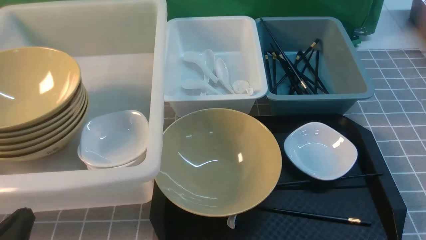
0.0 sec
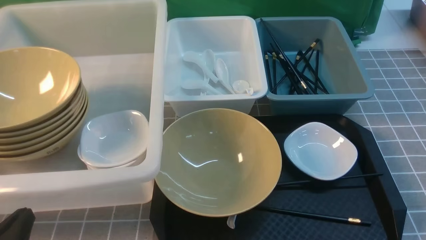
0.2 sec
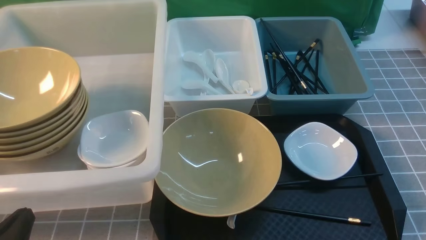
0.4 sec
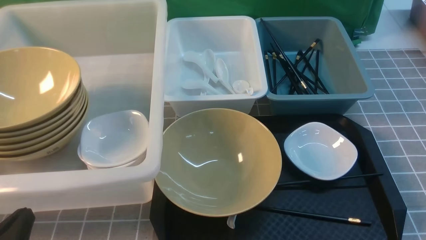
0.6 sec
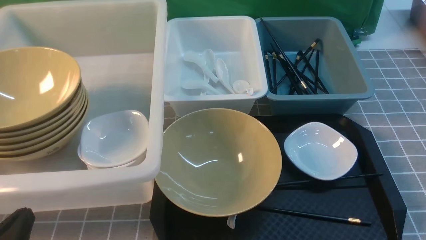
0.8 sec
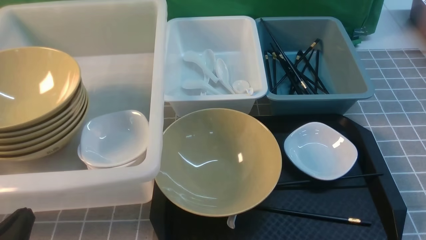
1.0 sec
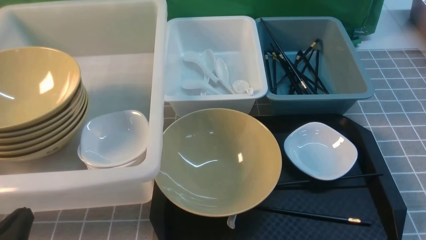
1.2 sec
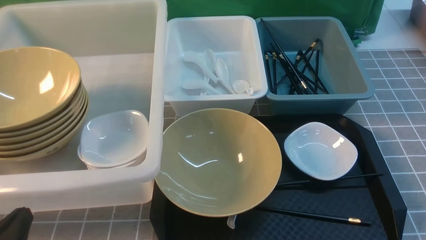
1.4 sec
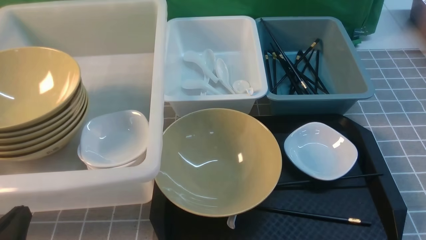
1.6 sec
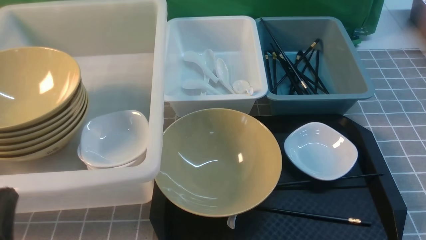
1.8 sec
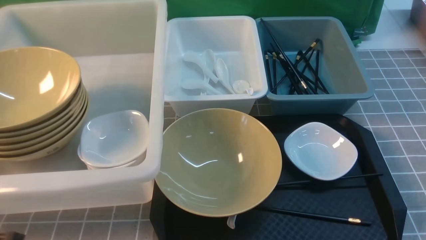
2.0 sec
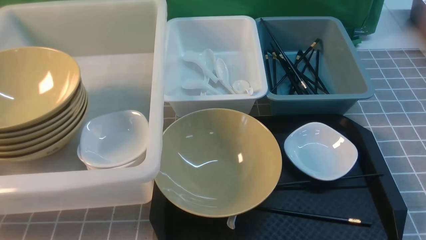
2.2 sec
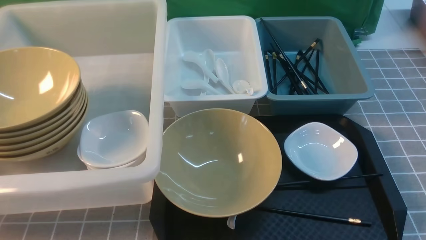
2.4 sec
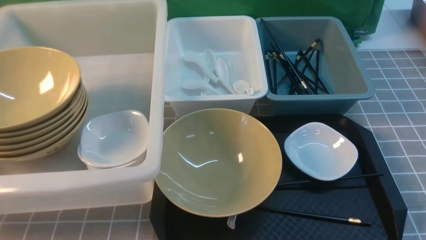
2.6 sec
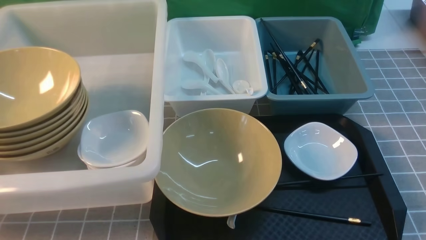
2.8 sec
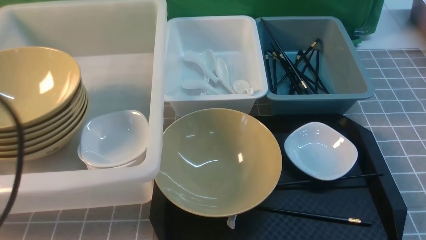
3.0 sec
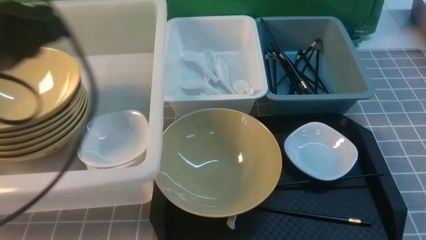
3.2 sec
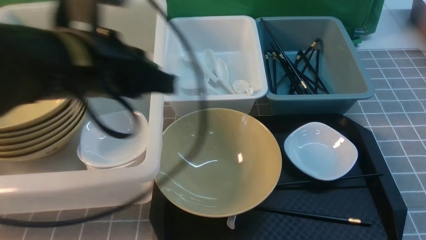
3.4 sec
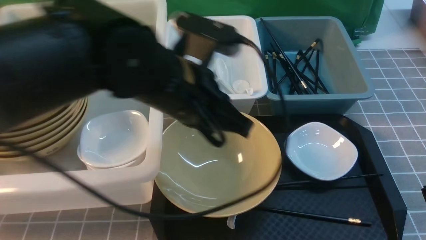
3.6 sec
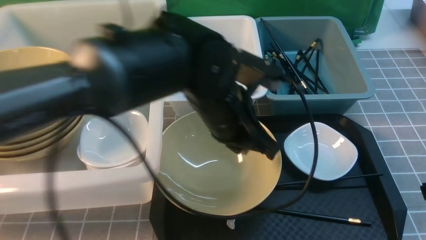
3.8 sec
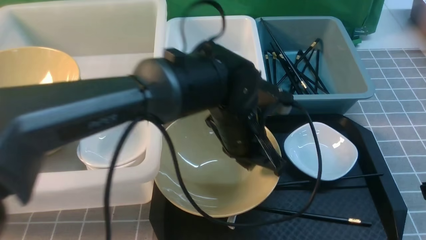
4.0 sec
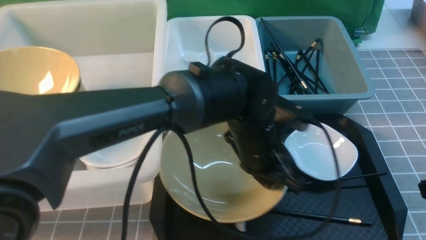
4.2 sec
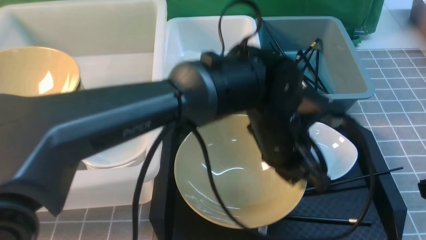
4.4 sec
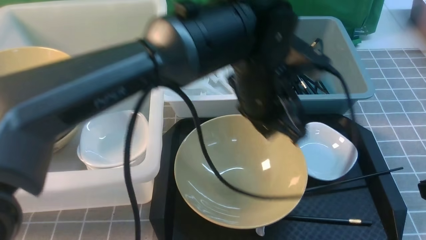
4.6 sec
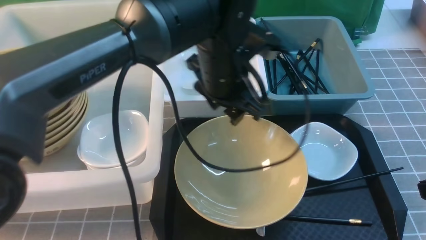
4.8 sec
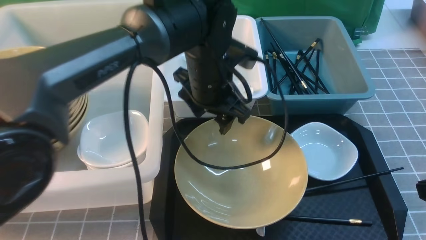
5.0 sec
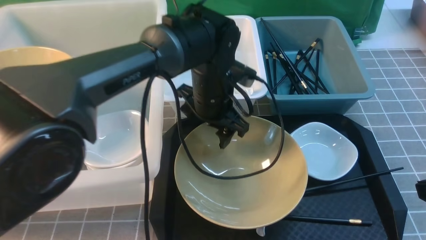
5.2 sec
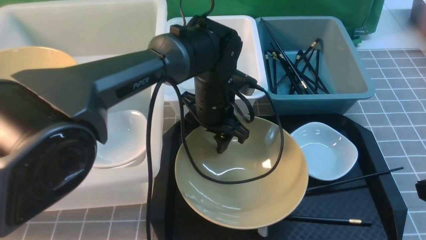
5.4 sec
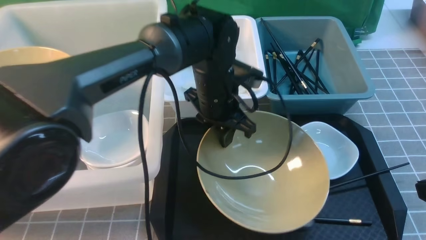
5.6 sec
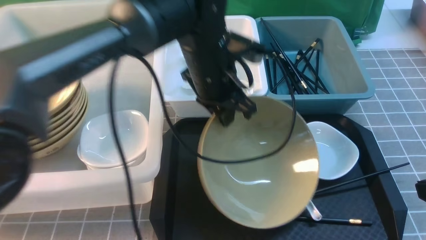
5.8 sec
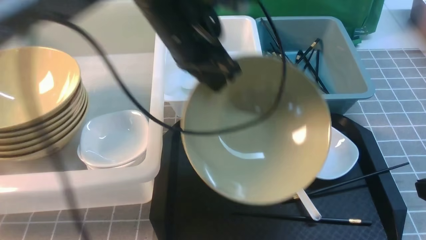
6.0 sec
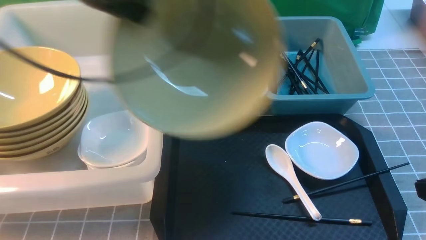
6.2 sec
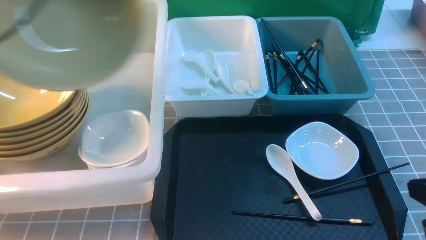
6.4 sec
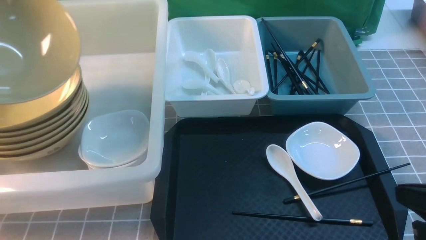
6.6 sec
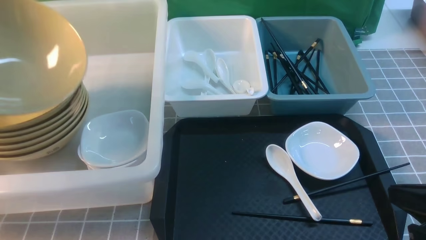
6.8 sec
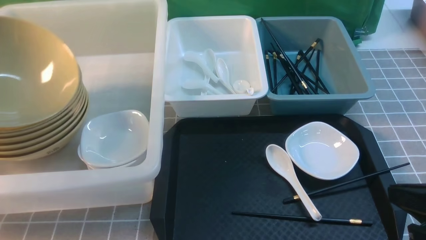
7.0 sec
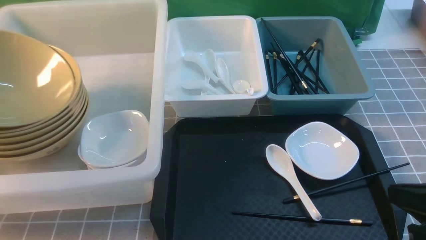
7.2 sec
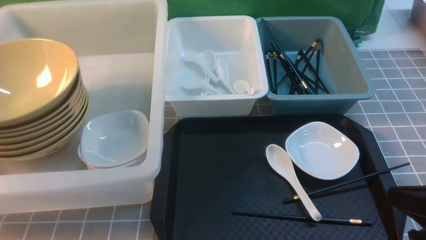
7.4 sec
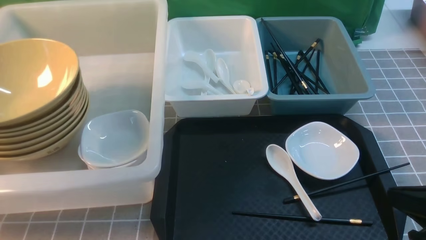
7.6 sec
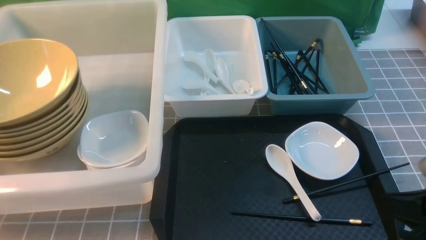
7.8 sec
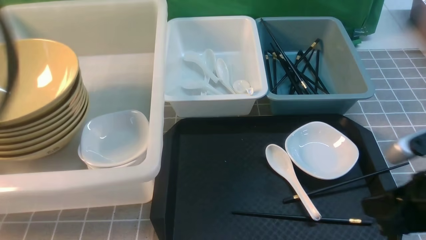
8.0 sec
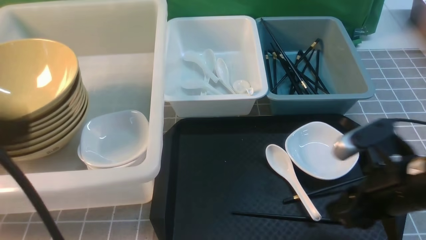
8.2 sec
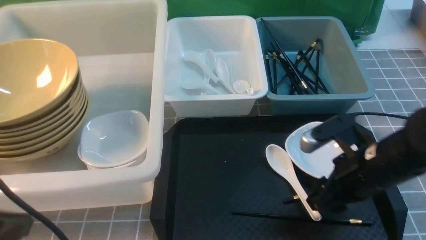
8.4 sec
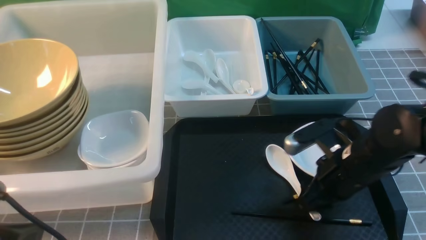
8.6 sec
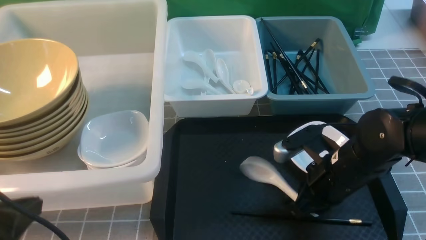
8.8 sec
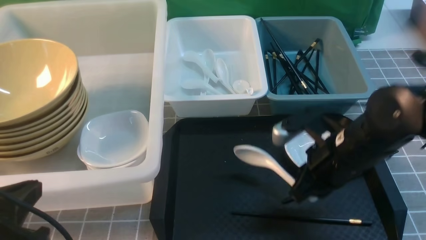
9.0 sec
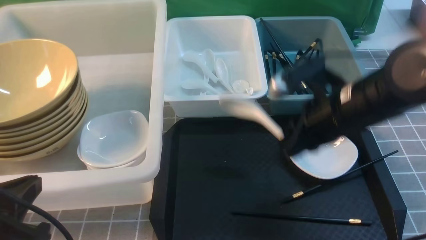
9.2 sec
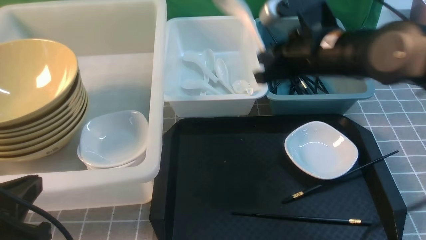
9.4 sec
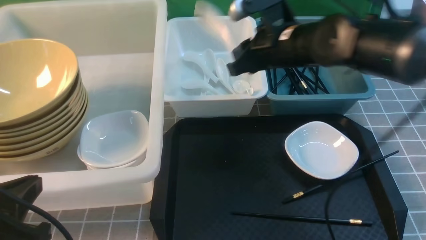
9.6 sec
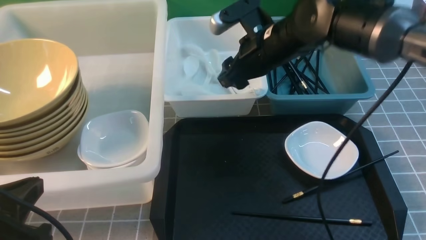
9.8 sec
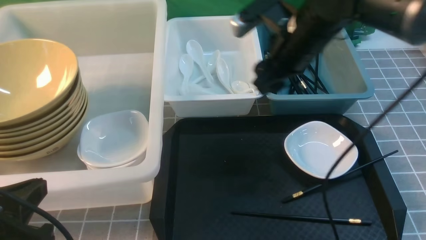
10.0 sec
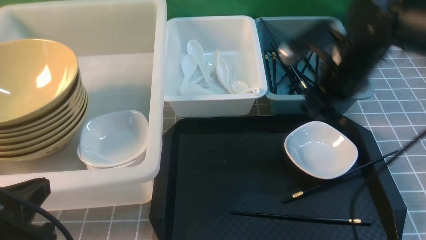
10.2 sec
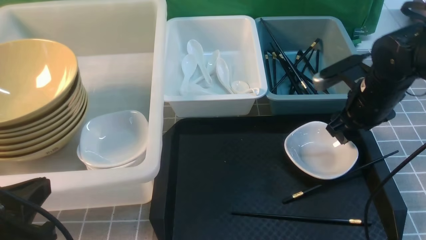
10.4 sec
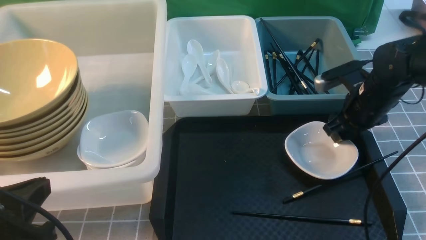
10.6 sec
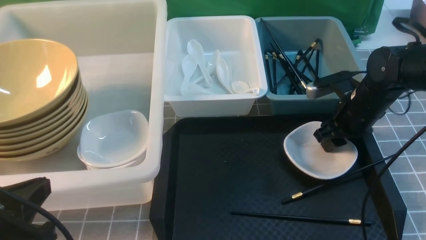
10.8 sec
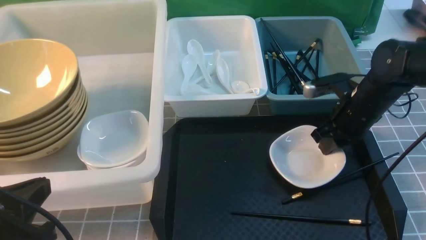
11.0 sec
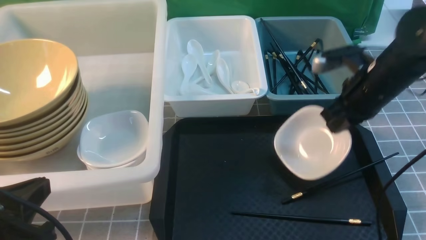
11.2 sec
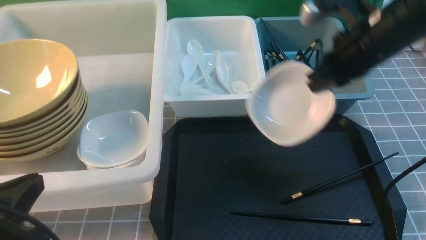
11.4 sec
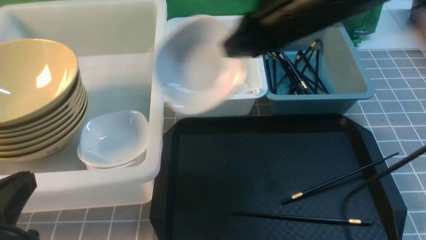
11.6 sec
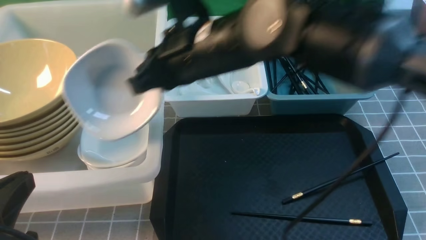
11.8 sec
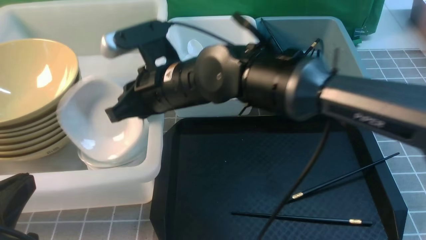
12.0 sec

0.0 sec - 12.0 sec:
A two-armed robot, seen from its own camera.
Task of the whole recording: on grey table put chopsticks spoon bowls plates into blue grey white boxes.
Step, 0.0 sec - 5.8 sec: use the left arm to grab the yellow noodle bowl on the left.
Step, 6.0 sec - 7.6 sec: use the left arm to put the noodle bowl into the large storage box on the left.
Step, 7.8 sec - 9.0 sec: use the right arm to grab the soup spoon in the middle.
Step, 9.2 sec - 9.8 sec: use the right arm to put the soup spoon into the small storage box in the middle.
Step, 10.0 sec - 11.2 sec: use the right arm to grab the plate.
1.6 sec - 3.0 sec: The left gripper is displaced upward by some 20 cm.
3.0 sec - 4.4 sec: The left gripper moves to the right, downward and forward, about 40 cm; the right gripper changes place by about 5 cm.
4.4 sec - 6.0 sec: The left gripper swings up and down, some 10 cm each way, with 2 reversals, and opens, then closes again.
6.0 sec - 7.6 sec: The left gripper goes about 35 cm to the left, and opens.
7.6 sec - 9.0 sec: The right gripper is displaced forward, to the left and downward by approximately 20 cm, and opens, then closes once more. Meanwhile the left gripper heads backward, to the right and downward, covering about 25 cm, and closes.
9.0 sec - 10.4 sec: The right gripper is displaced forward and to the right by roughly 10 cm, and opens its fingers.
10.4 sec - 12.0 sec: The right gripper moves to the left, roughly 25 cm, and closes.

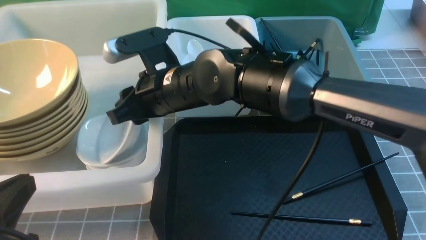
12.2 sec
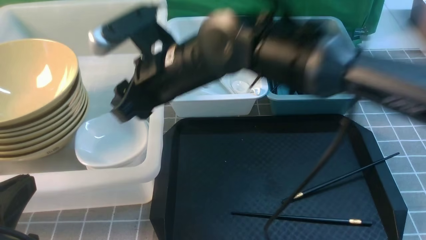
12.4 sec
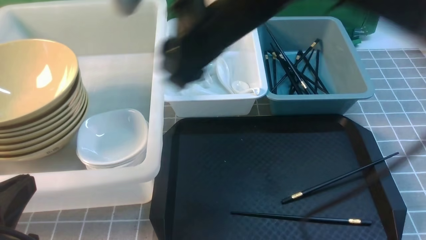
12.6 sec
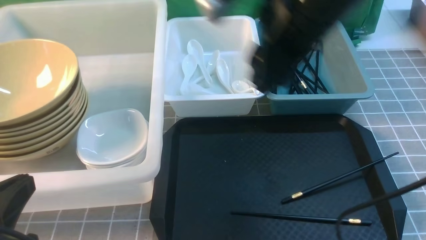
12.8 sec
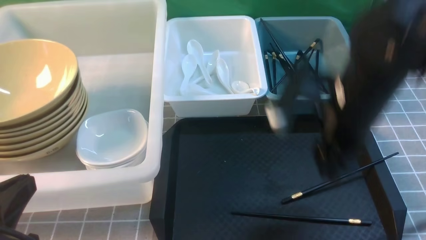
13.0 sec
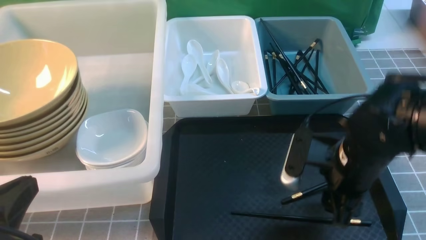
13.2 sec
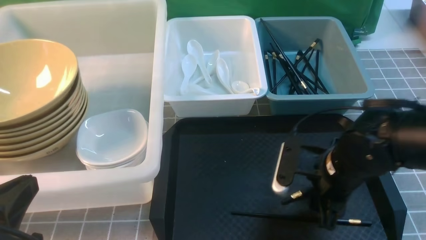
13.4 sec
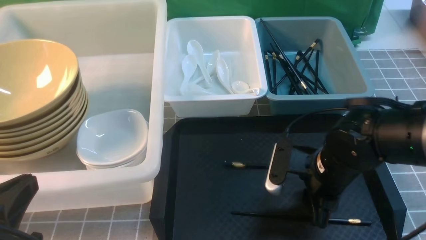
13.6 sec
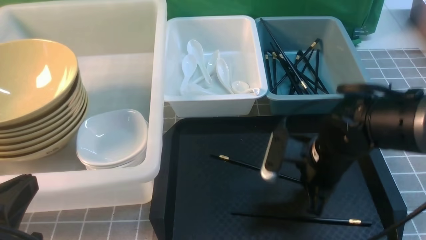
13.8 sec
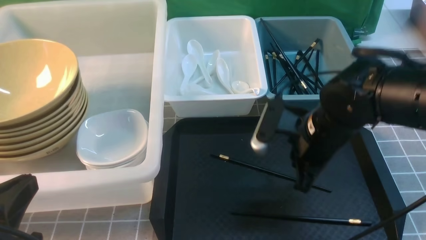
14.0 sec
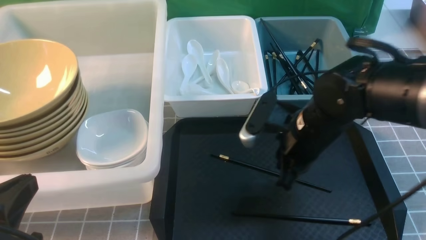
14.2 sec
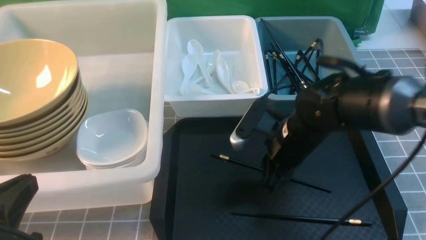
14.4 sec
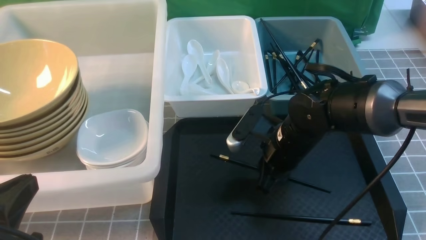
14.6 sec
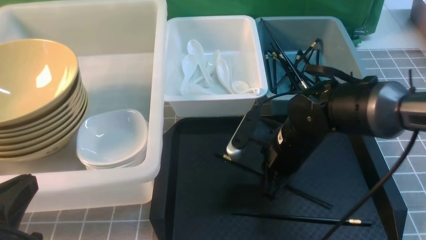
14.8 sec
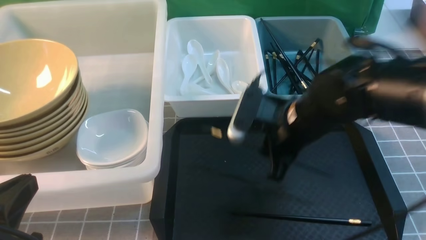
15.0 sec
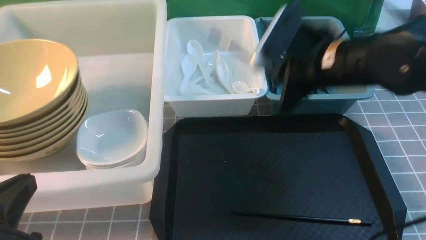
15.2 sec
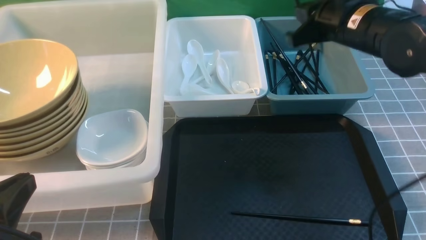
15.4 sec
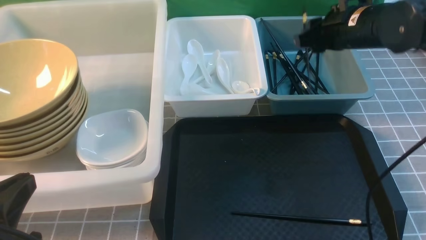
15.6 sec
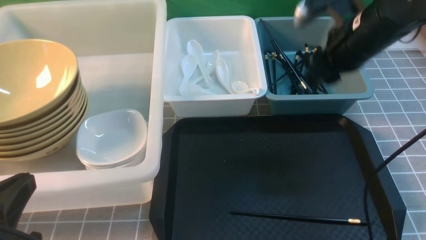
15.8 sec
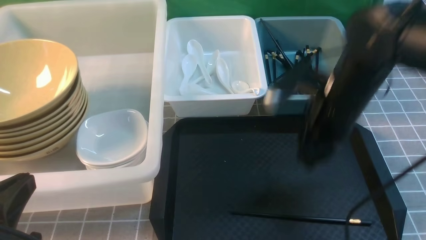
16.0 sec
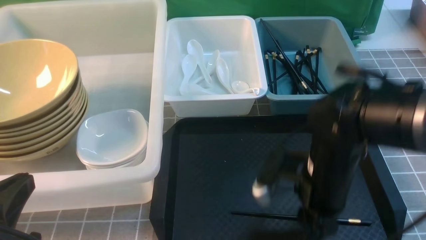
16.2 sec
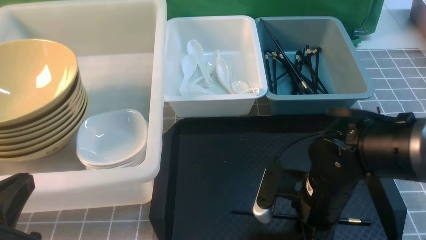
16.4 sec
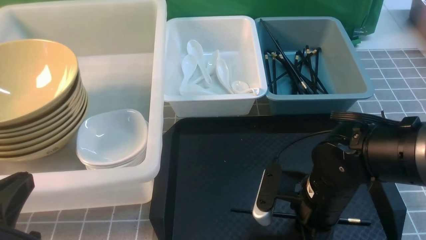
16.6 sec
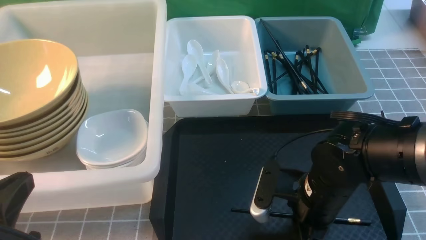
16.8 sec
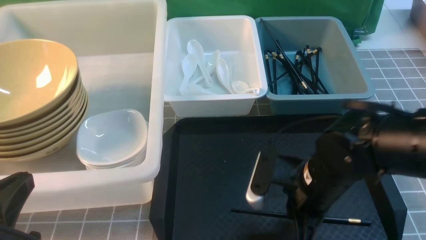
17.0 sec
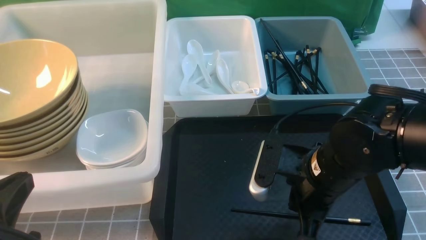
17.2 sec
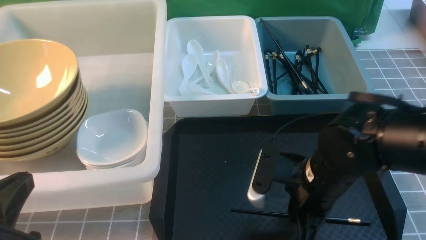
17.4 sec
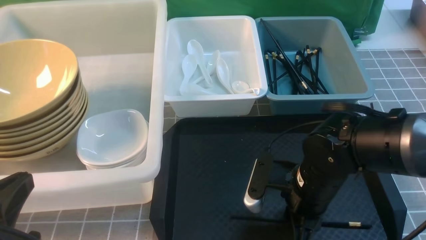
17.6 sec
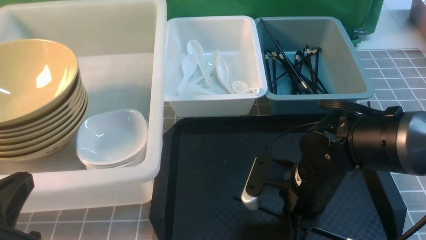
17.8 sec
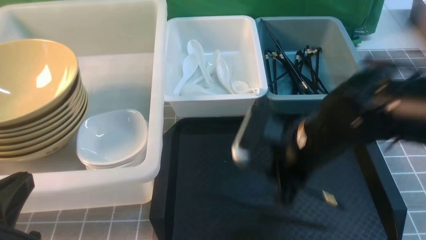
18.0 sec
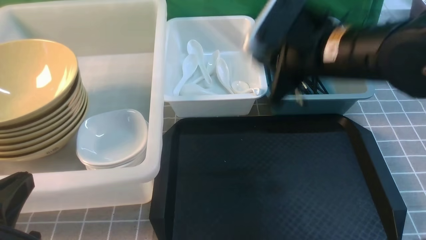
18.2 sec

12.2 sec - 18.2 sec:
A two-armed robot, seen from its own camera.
Task of the whole recording: on grey table put chopsticks spoon bowls plates into blue grey white boxes.
Step, 12.6 sec - 14.8 sec: use the right arm to grab a chopstick.
Step, 15.2 sec - 15.6 sec: use the right arm to put a chopstick into the small storage box on the right.
Step, 15.8 sec - 17.8 sec: use the right arm to grab a chopstick.
12.2 sec - 13.8 sec: The right gripper travels to the right and downward by roughly 25 cm, and opens, then closes again.
13.8 sec - 15.2 sec: The right gripper goes roughly 10 cm upward.
15.2 sec - 16.6 sec: The right gripper heads downward and backward, covering approximately 15 cm, and opens up.
16.6 sec - 18.2 sec: The right gripper goes approximately 15 cm upward and forward, and closes its fingers.
